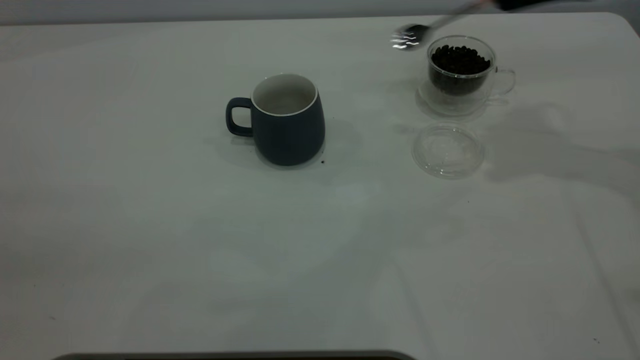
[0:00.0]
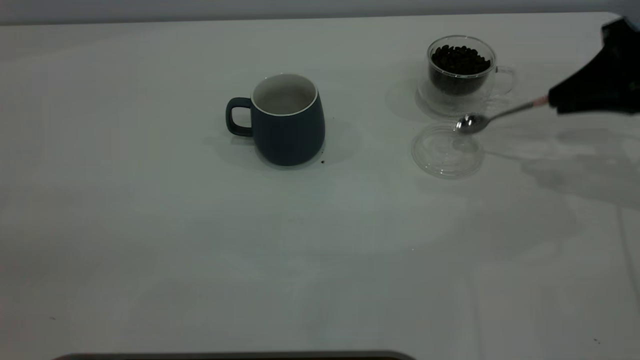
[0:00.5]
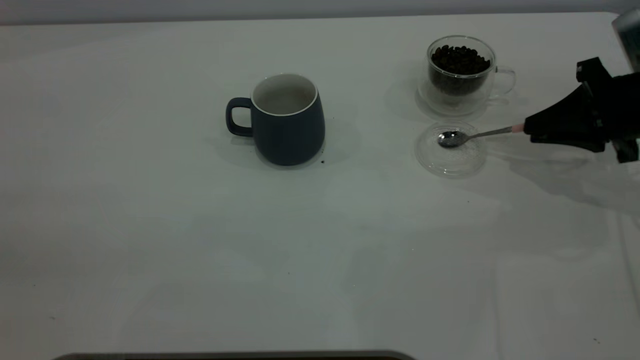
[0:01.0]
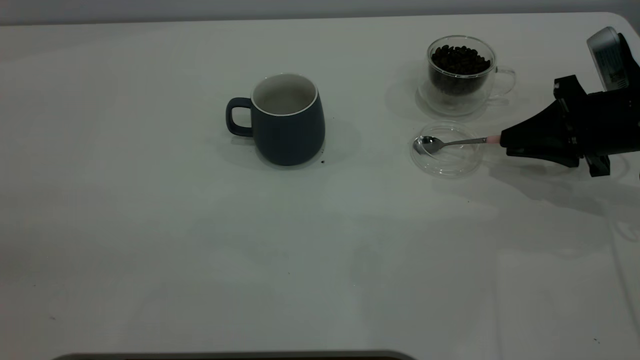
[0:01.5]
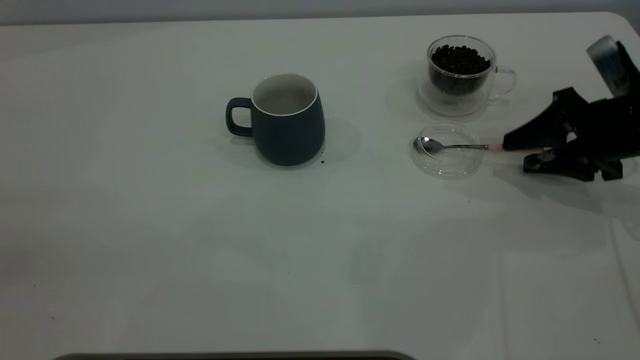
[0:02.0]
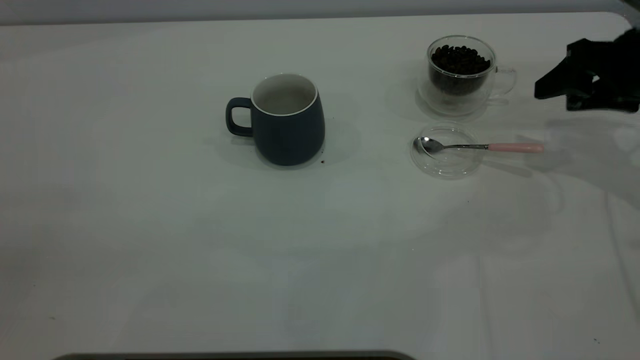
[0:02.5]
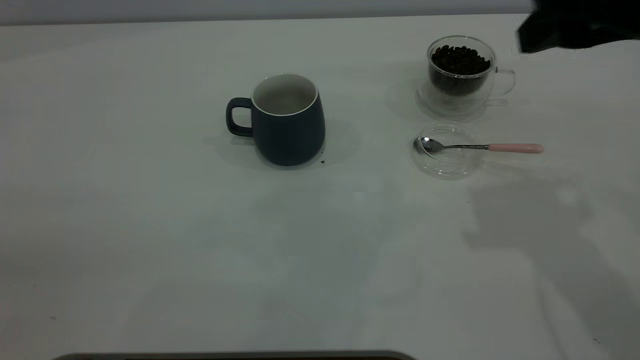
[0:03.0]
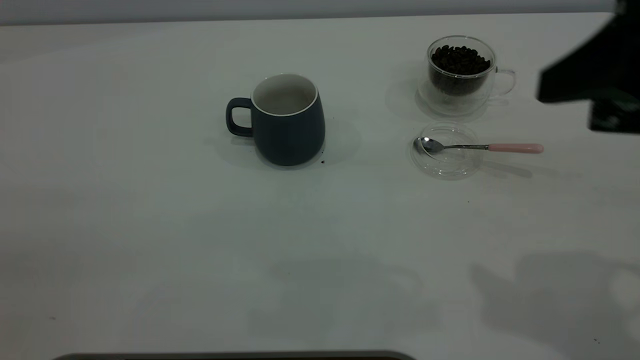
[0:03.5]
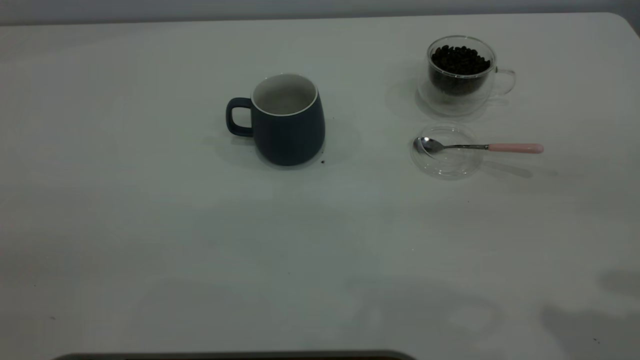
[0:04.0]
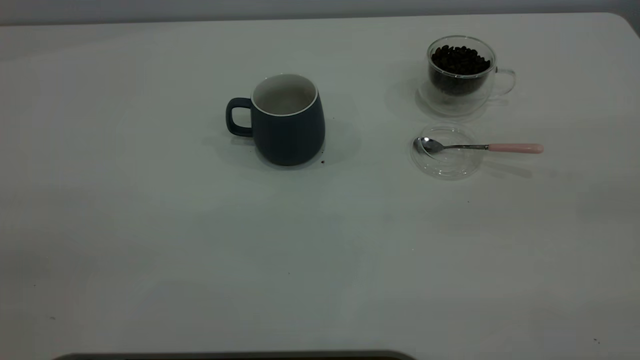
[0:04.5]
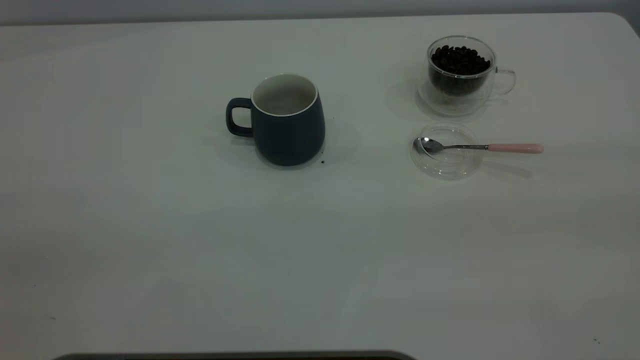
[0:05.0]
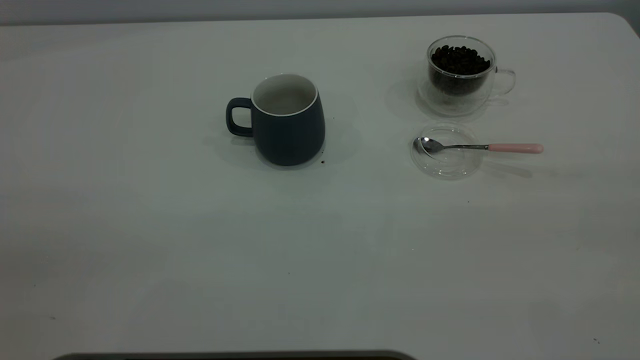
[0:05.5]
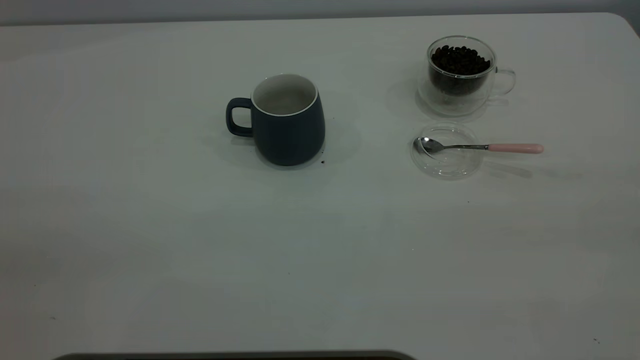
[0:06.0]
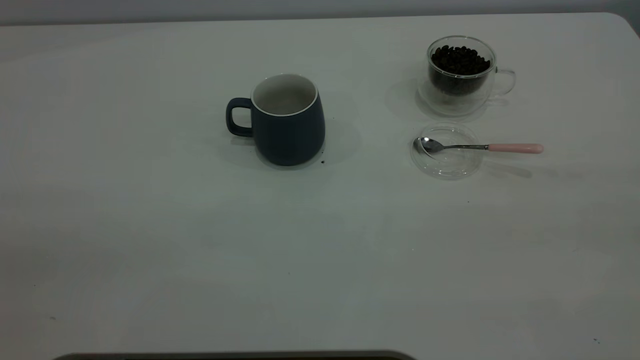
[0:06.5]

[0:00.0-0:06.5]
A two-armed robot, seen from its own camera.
Task of the whole recording: the left gripper place the grey cup in the center of the table, the right gripper take the pink spoon from the cup lid and scoop out the coffee beans from the coffee cup and put them into the grey cup, the right gripper put the spoon back into the cup lid.
Step, 0:00.0 to 0:02.0: Place the spoon back in its original place.
0:00.0 to 0:02.0: The right gripper travels downward by about 15 cm, and opens up.
0:02.0 to 0:04.5: The right gripper is displaced upward and backward by roughly 40 cm.
